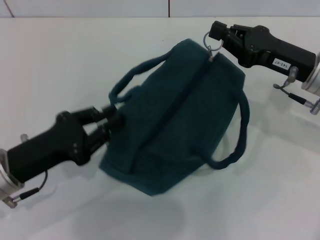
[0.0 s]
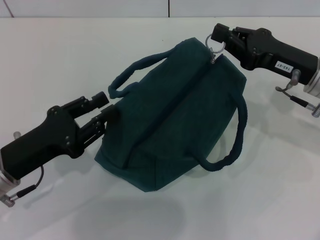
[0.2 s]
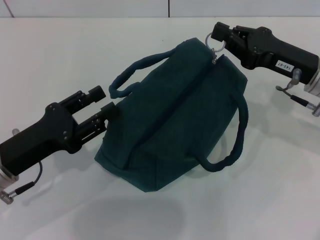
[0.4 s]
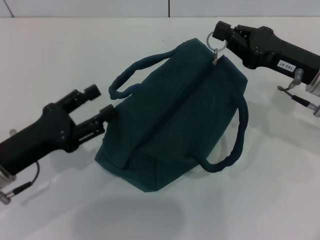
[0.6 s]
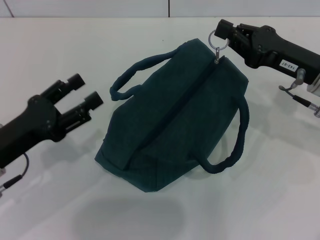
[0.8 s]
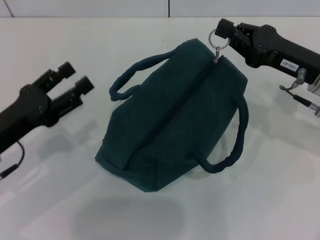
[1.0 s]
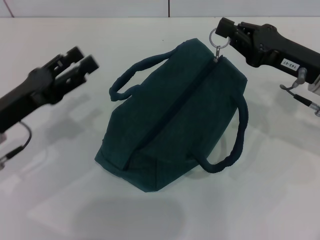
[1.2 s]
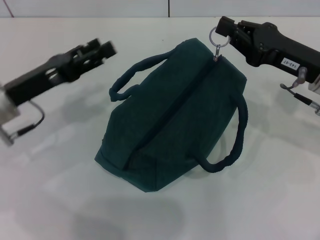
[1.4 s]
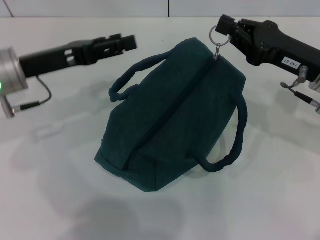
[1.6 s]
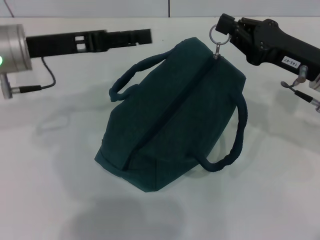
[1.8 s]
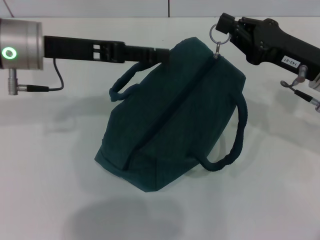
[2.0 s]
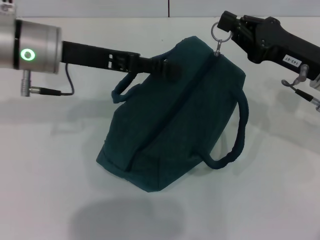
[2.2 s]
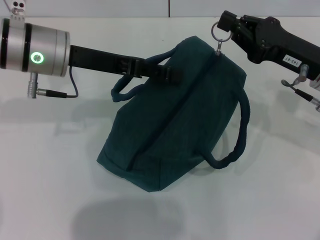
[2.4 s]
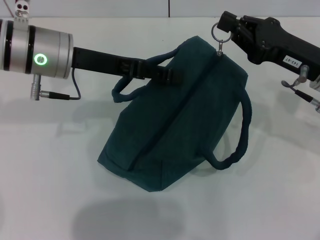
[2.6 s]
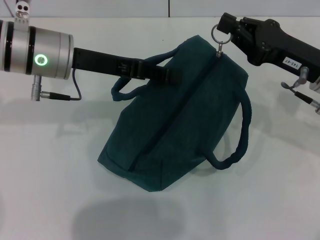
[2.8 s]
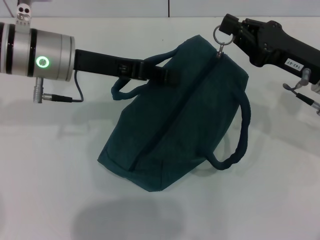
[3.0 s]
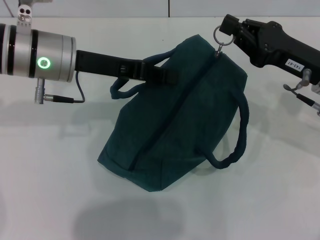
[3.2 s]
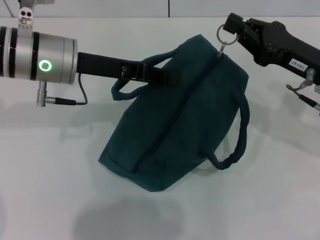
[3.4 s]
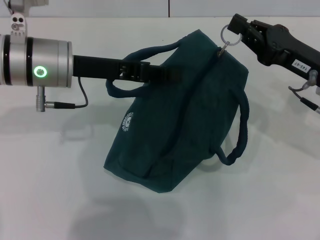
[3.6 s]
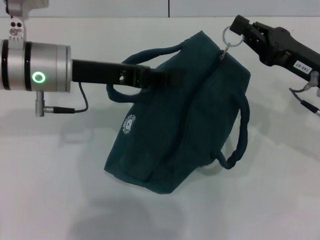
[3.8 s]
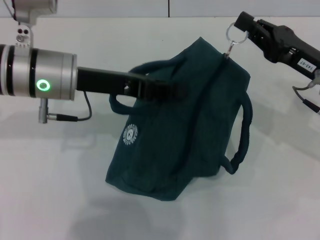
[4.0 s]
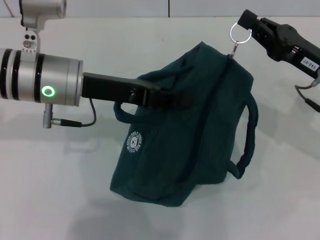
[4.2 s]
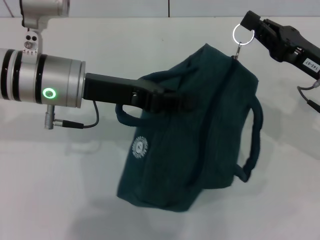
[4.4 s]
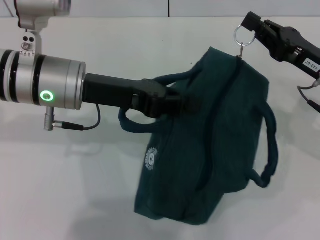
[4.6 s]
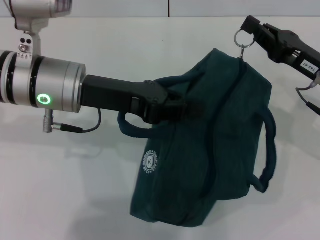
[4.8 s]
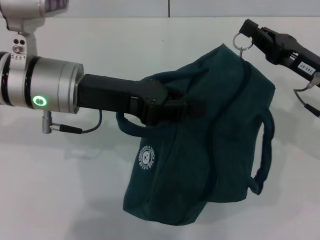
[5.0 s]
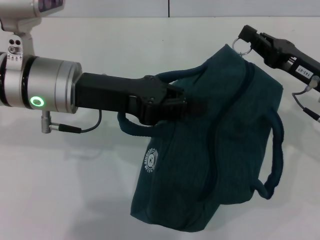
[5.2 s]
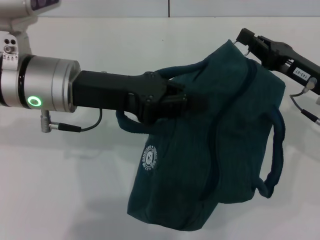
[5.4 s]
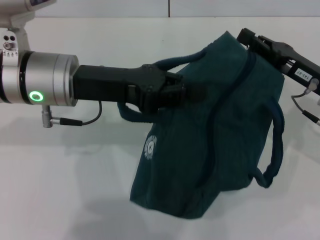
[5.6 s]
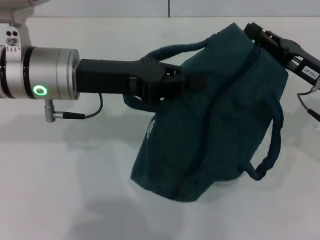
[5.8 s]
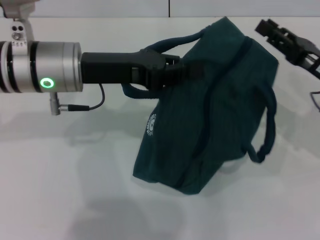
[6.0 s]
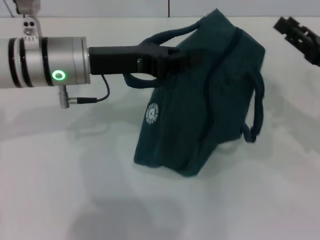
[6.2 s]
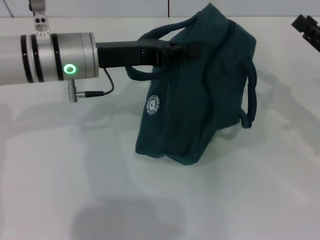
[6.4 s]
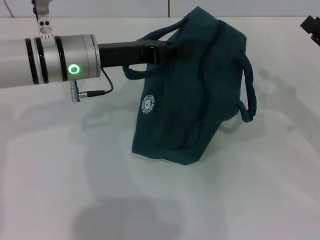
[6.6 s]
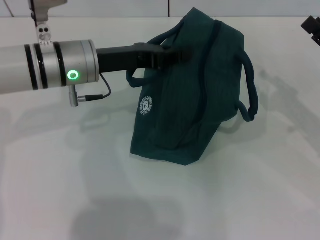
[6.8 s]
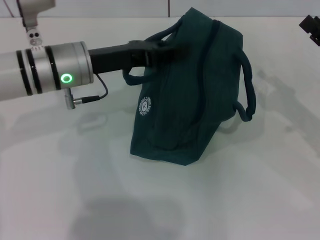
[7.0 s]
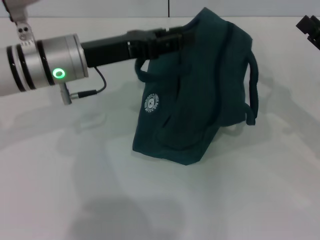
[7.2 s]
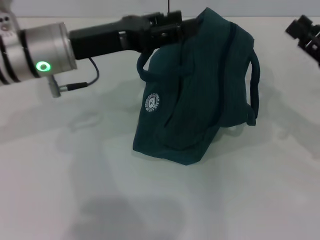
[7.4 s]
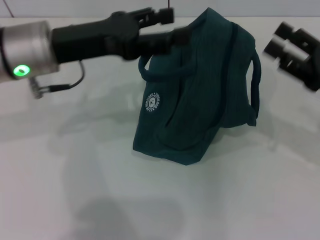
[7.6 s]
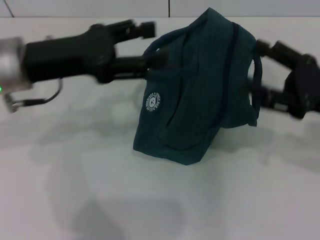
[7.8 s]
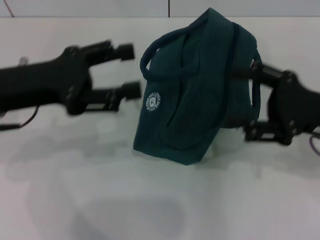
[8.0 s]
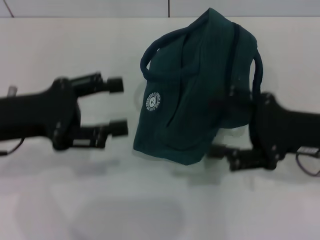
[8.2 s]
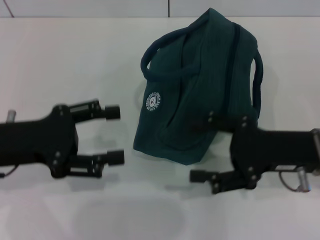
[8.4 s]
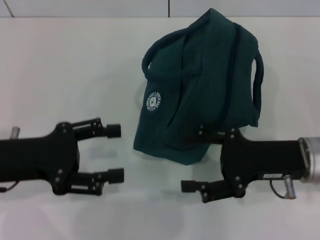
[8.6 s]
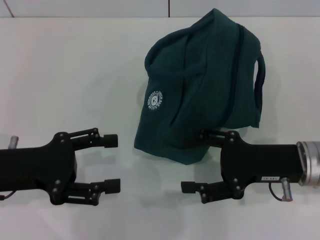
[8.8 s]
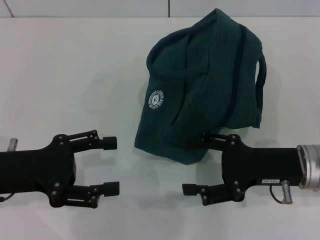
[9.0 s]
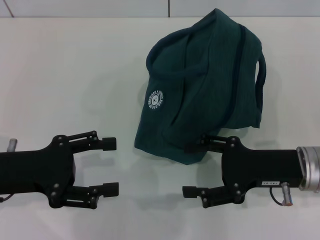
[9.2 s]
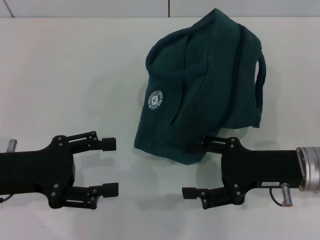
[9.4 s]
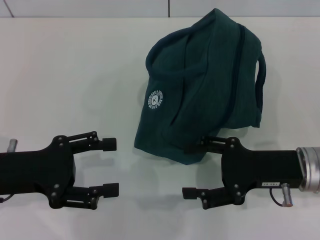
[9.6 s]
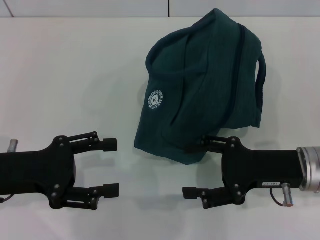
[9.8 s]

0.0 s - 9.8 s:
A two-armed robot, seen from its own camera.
Step, 0.0 s - 5.8 s: Zip up the lunch bag with your right hand.
Step, 6.0 s - 7.2 s: Hold the lunch bag with your left hand.
0.0 s - 1.4 s: The left gripper shifts roughly 10 cm forward, and opens its fingers.
1.4 s - 2.8 s: The left gripper shifts roughly 15 cm to the right, upward and forward.
2.8 s - 4.2 s: The left gripper closes its fingers.
5.6 s - 7.0 s: The left gripper ends up roughly 5 cm from where it was. Meanwhile the right gripper goes about 5 cm to the right, and opens.
7.0 s - 8.4 s: The right gripper moves to the left, some 10 cm. Meanwhile the left gripper heads backward and to the left, covering roughly 15 cm, and opens.
